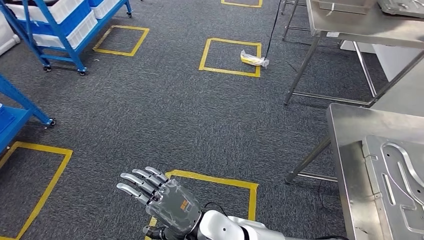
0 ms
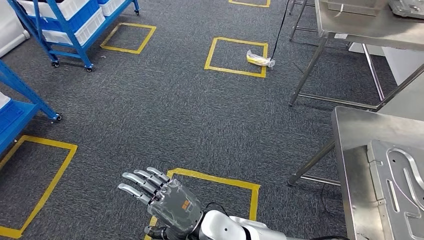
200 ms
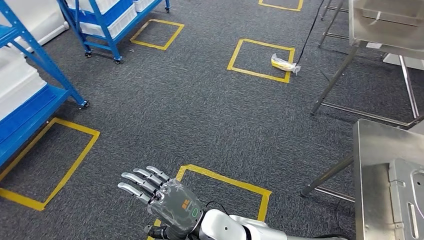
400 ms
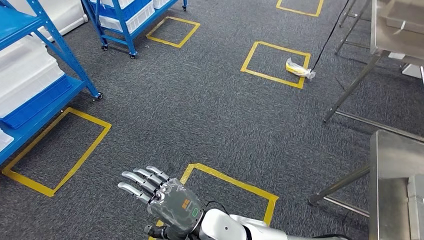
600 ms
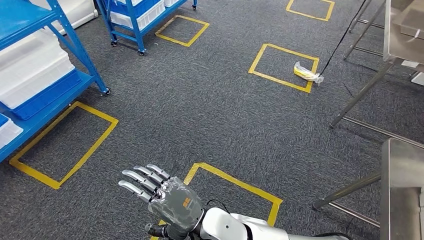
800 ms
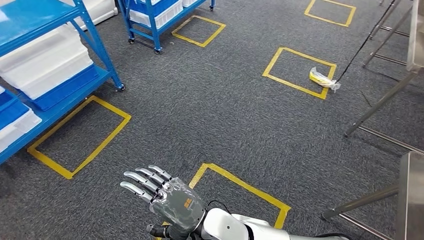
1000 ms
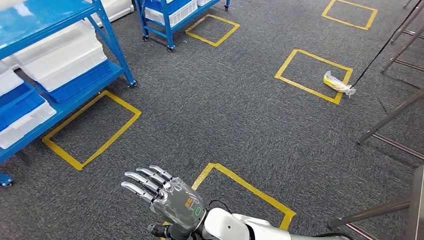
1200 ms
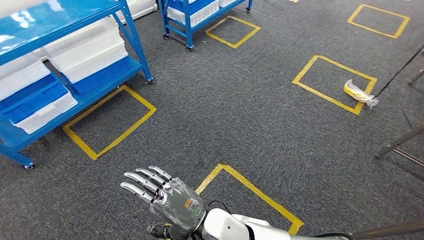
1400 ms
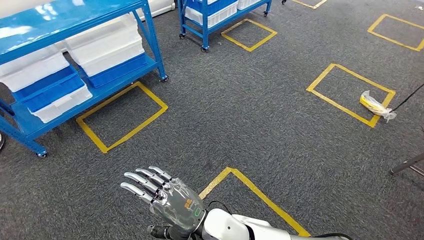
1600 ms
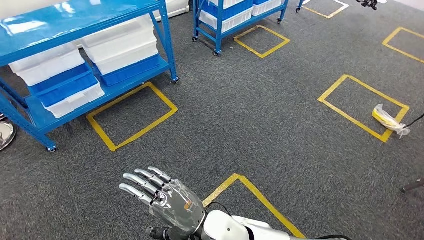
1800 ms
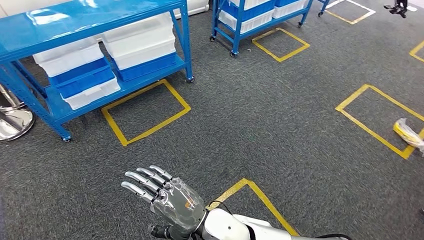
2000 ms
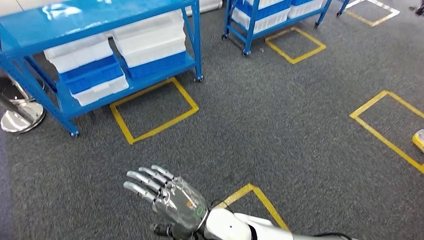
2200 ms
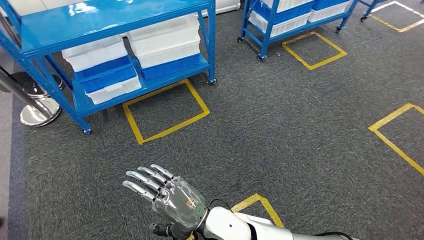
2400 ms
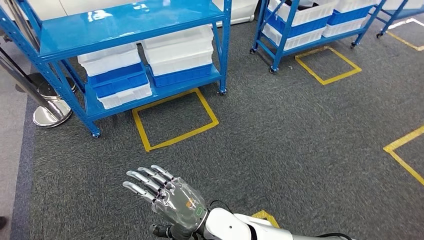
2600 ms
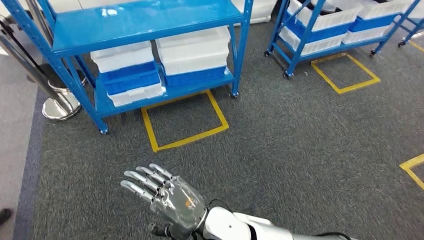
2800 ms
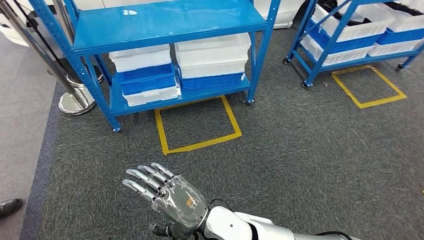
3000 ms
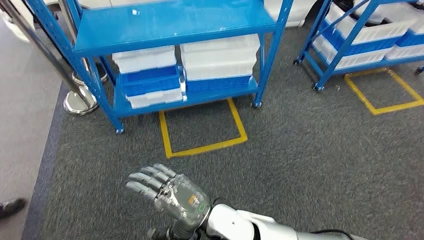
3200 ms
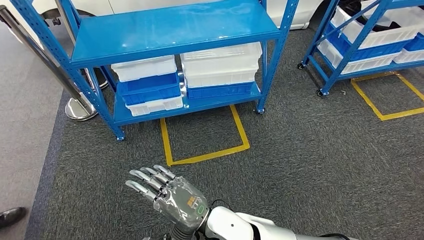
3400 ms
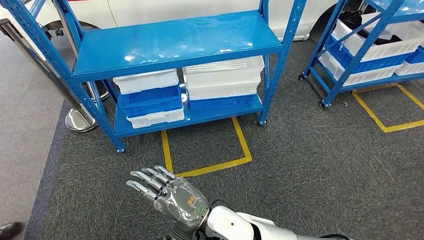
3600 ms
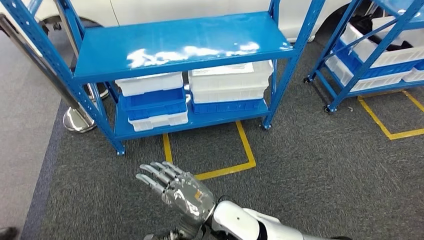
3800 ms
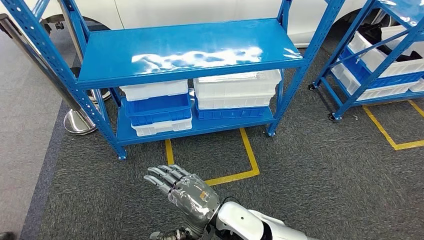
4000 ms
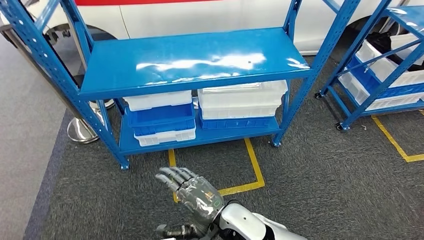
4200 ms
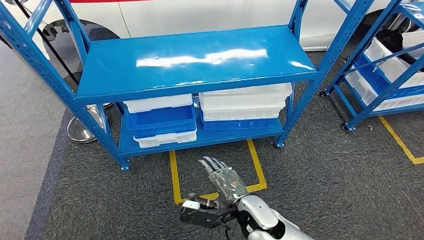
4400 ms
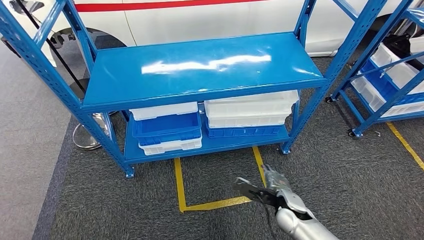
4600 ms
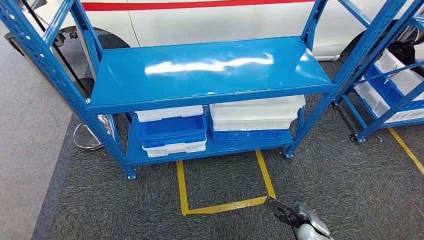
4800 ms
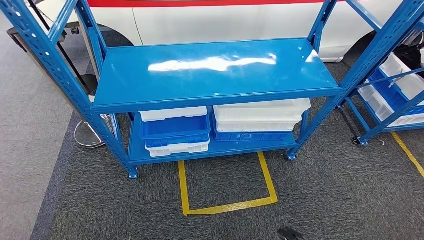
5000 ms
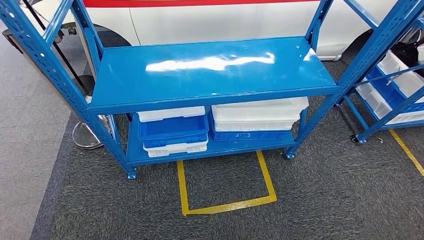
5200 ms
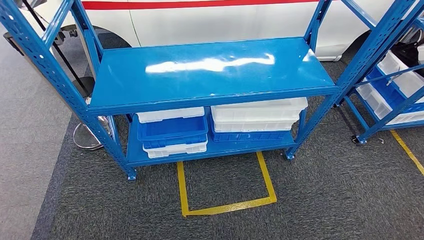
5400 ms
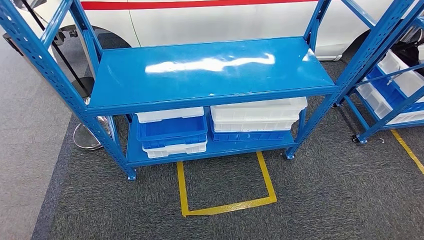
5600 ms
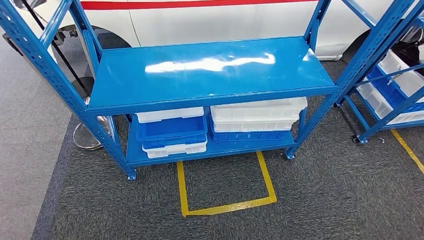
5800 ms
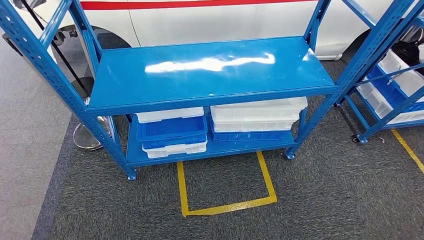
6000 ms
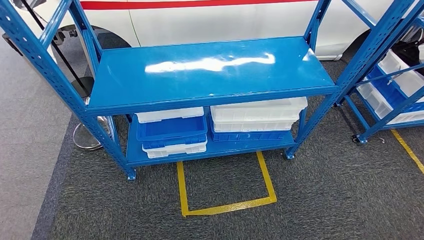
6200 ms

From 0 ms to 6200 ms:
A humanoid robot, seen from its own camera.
Step, from 0 ms to 6200 ms: Return to the initial position at the shelf.

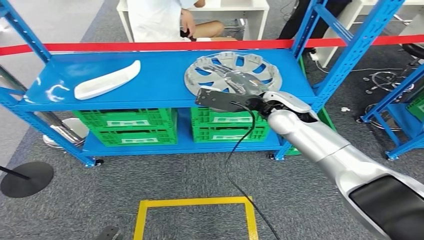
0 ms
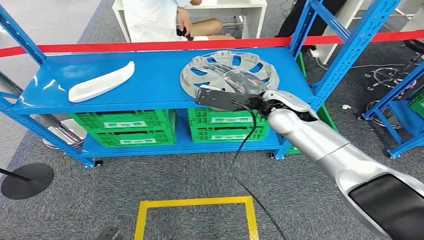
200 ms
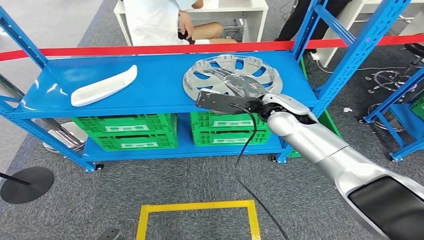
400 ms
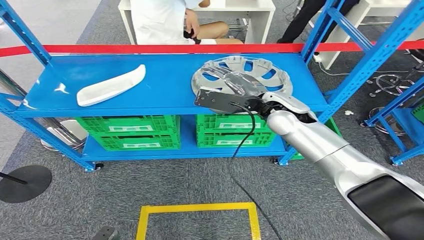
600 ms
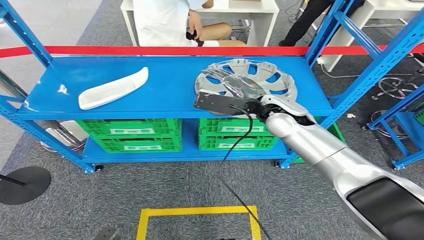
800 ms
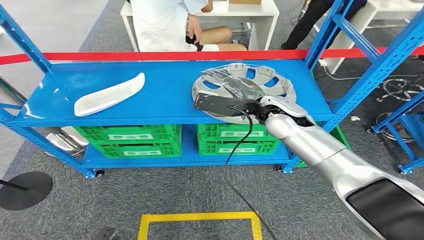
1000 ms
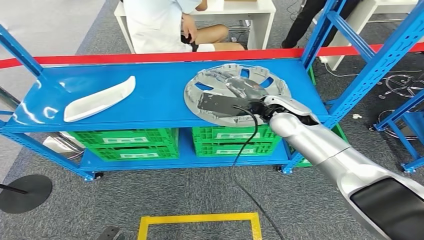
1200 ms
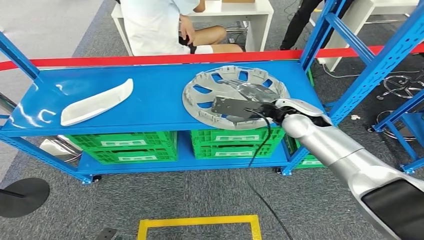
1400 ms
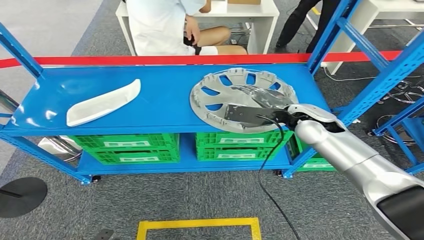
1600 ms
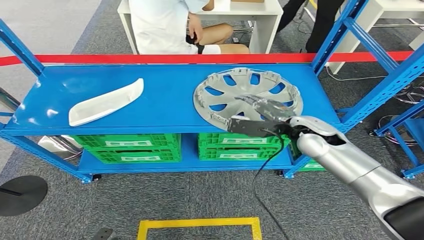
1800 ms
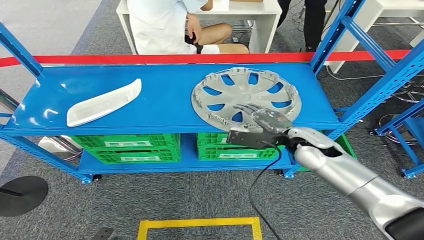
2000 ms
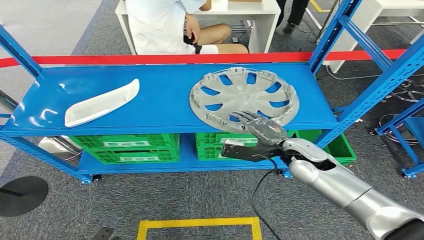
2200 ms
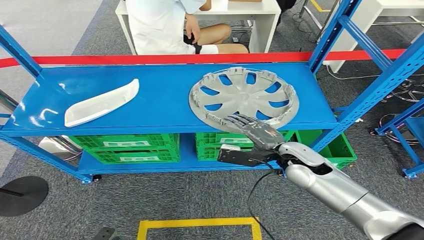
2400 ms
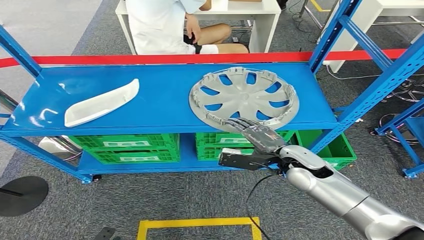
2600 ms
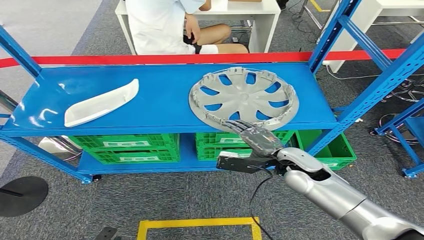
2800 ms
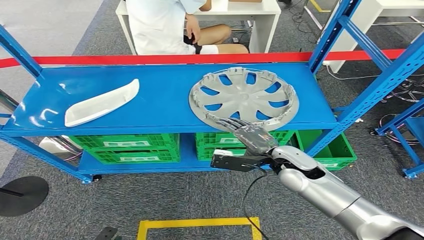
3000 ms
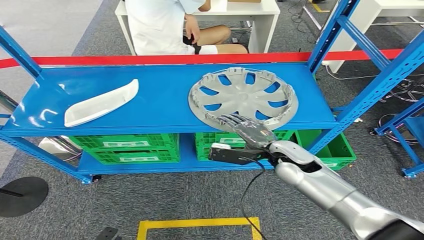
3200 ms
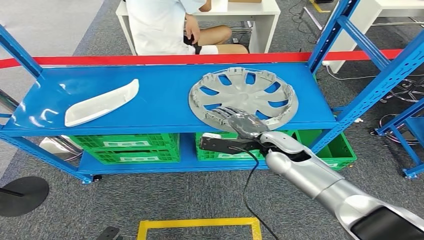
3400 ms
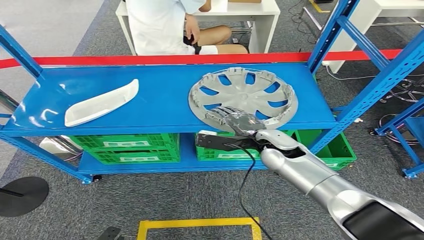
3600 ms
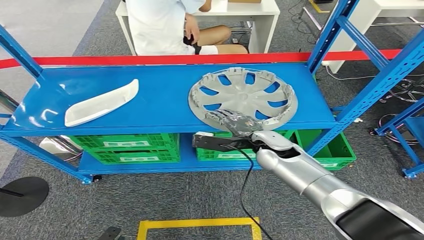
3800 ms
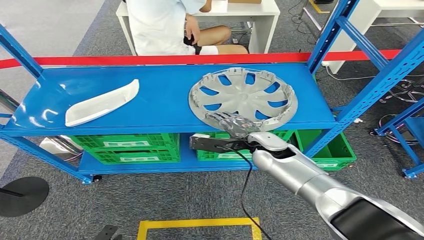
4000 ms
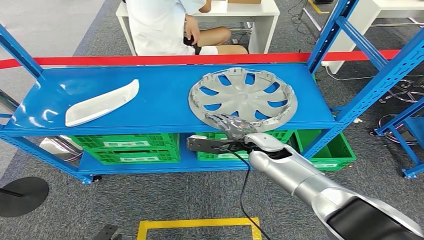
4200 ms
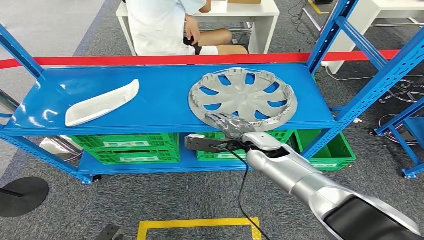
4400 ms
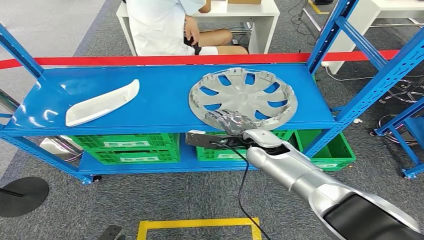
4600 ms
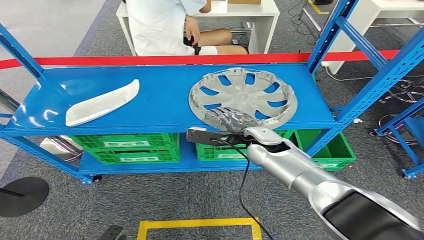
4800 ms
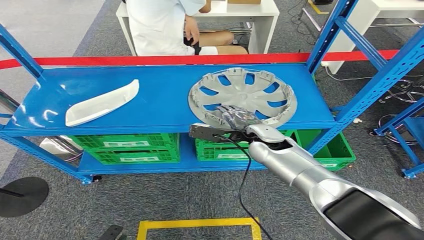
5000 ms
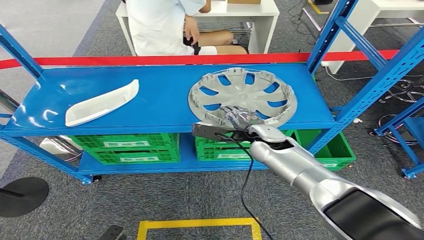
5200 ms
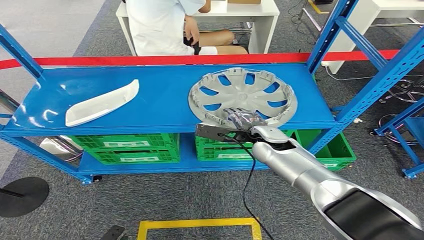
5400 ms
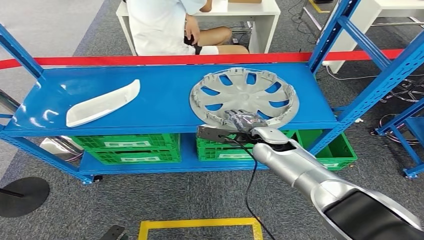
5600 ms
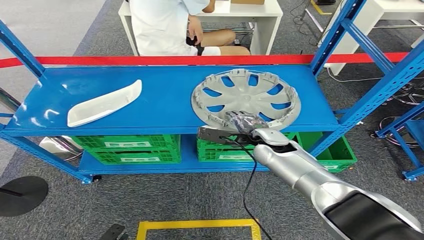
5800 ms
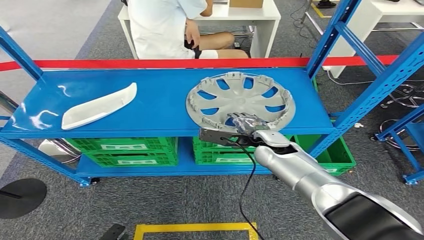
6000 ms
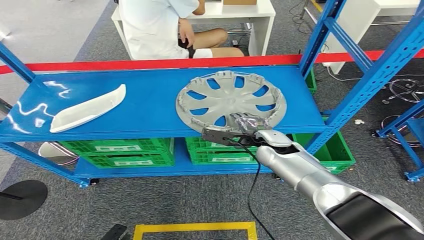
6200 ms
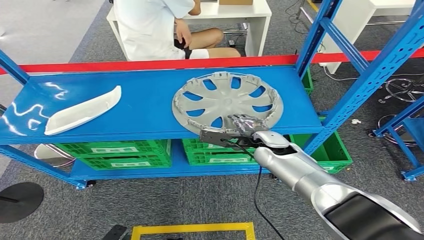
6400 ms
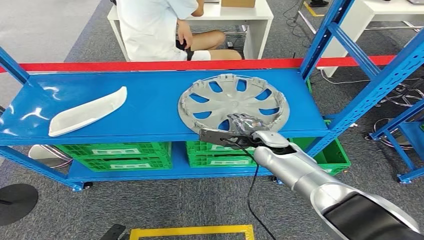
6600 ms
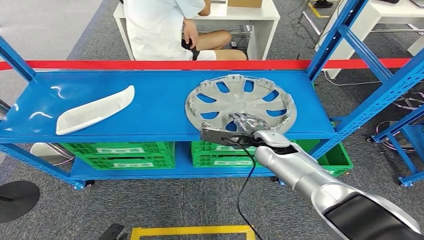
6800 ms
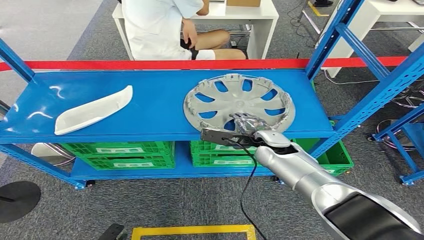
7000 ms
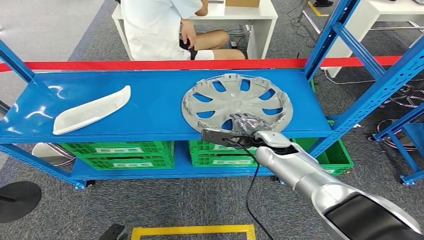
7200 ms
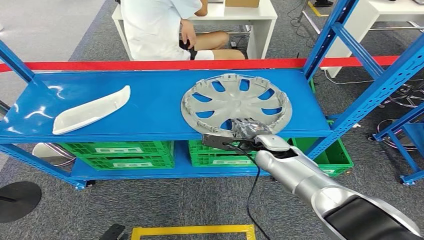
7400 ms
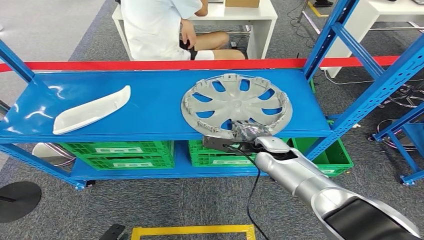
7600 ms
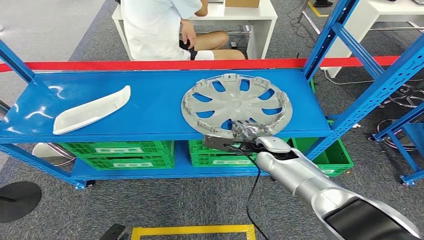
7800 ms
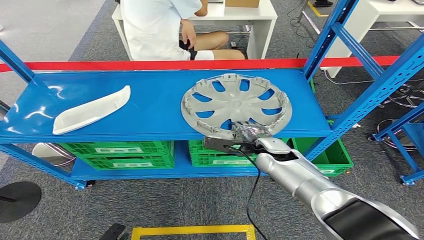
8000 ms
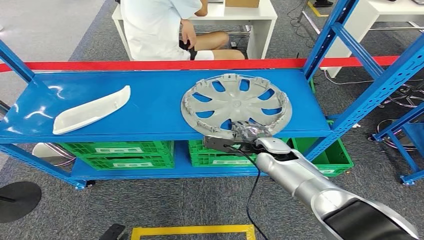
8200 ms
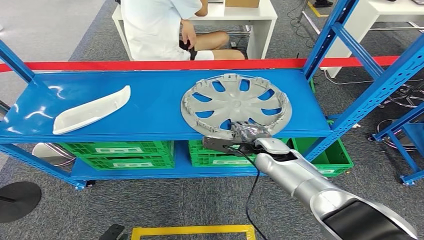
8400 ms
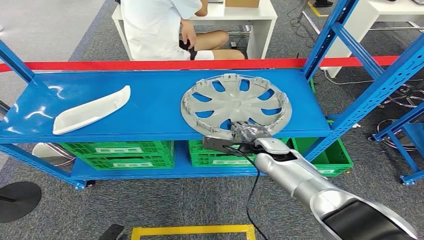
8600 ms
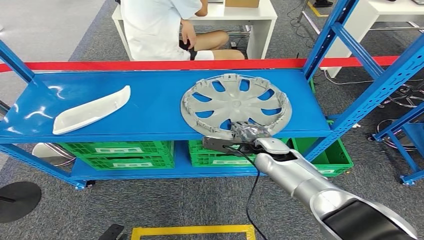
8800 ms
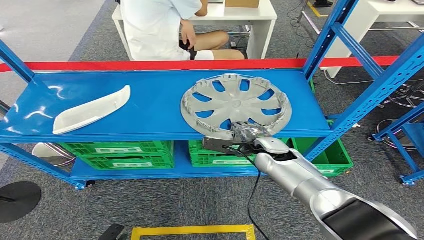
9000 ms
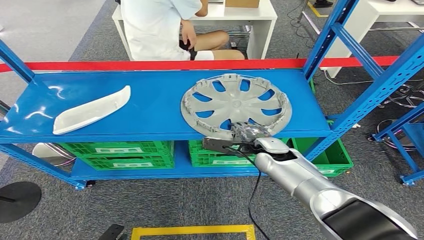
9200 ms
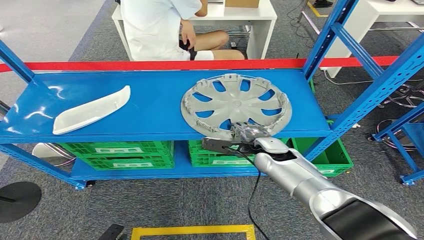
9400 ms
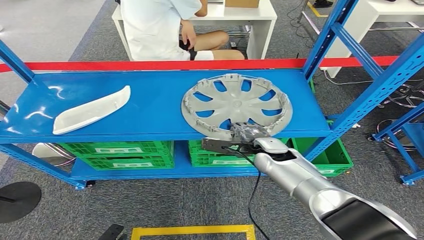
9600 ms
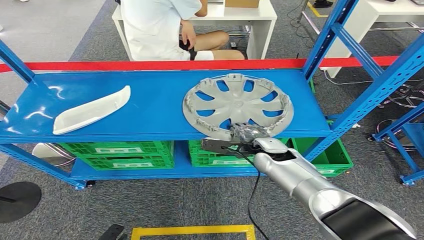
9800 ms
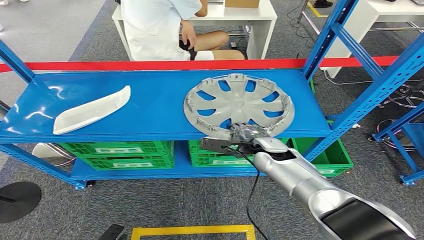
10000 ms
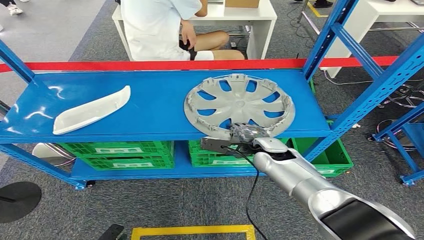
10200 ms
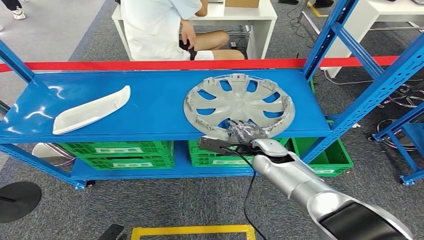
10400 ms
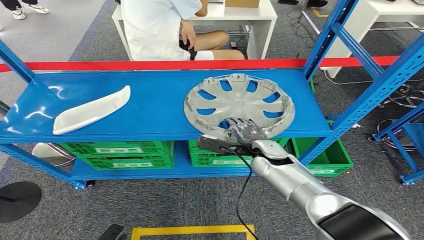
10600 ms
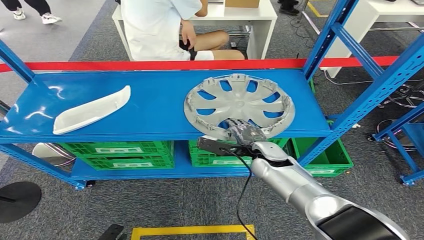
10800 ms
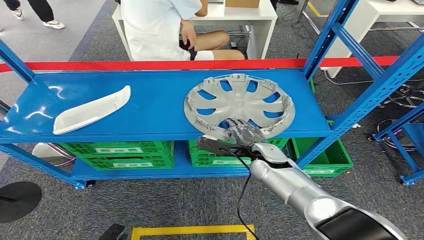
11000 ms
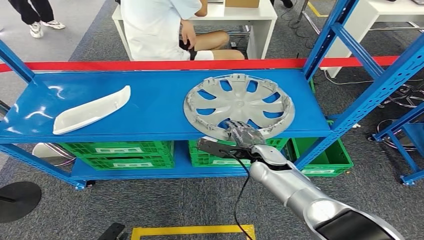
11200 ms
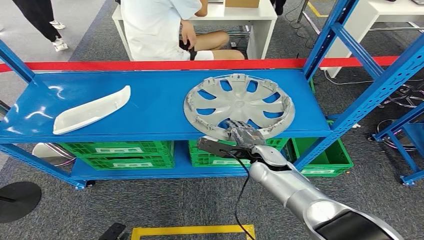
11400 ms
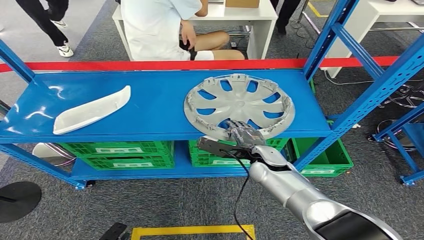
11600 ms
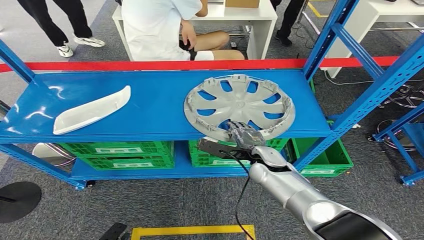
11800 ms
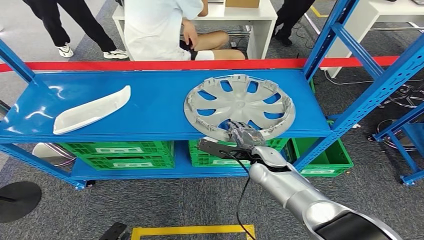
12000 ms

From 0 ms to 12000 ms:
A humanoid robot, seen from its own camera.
From 3000 ms to 4400 ms: The right hand moves to the left, approximately 5 cm.
From 7600 ms to 9000 ms: Neither hand changes place.
From 9000 ms to 12000 ms: The hands make only small movements.
